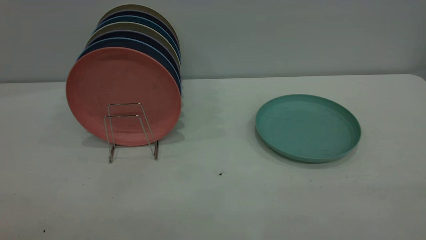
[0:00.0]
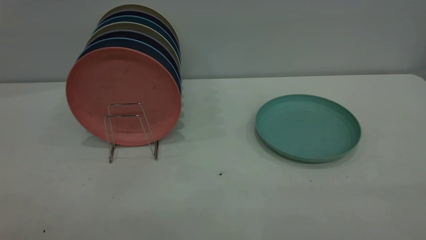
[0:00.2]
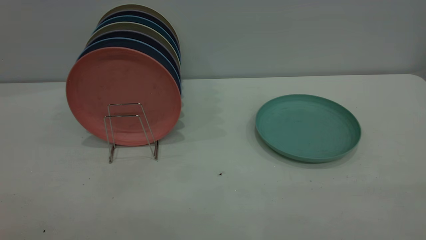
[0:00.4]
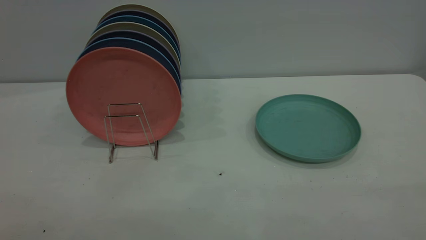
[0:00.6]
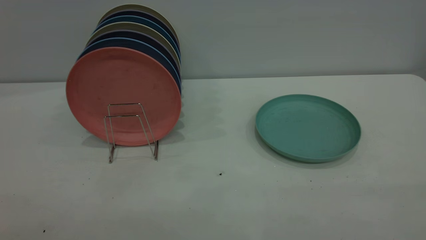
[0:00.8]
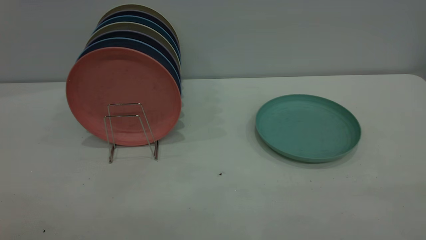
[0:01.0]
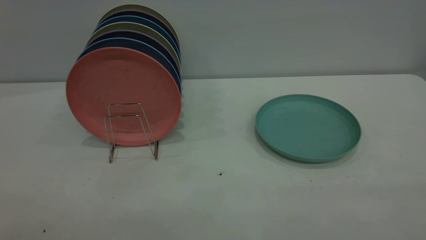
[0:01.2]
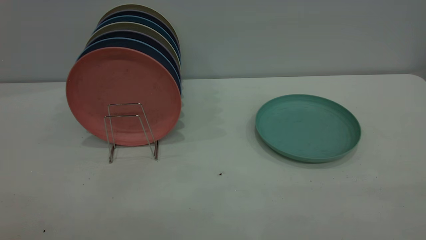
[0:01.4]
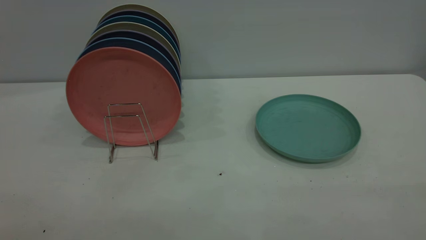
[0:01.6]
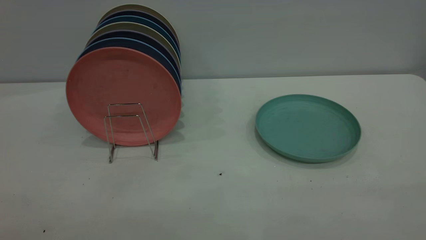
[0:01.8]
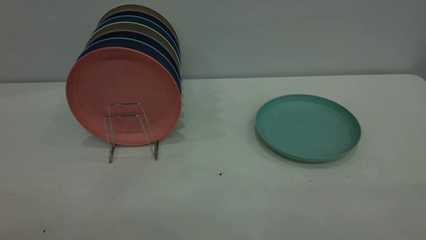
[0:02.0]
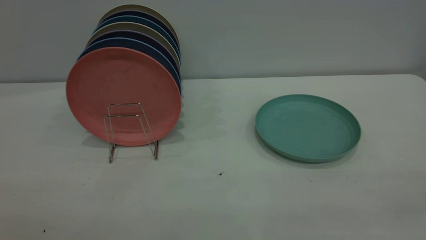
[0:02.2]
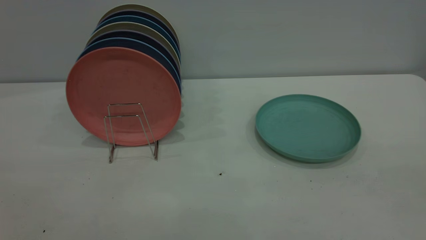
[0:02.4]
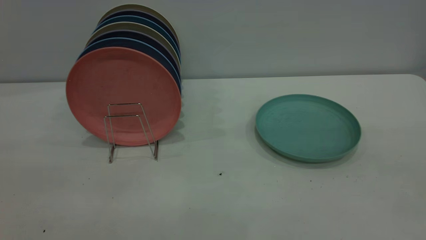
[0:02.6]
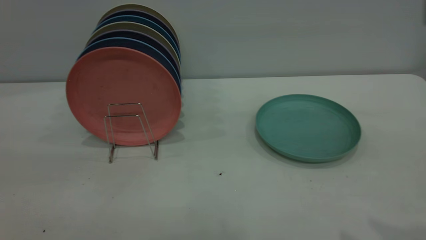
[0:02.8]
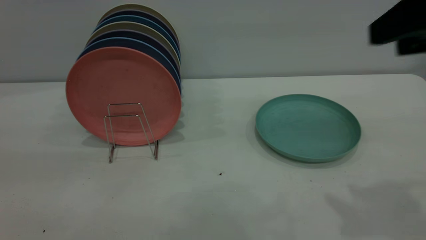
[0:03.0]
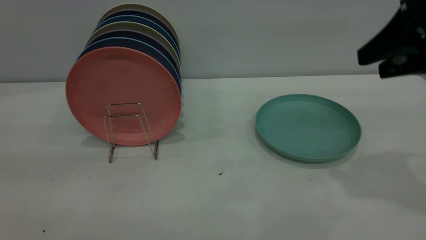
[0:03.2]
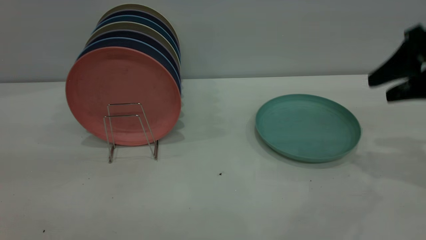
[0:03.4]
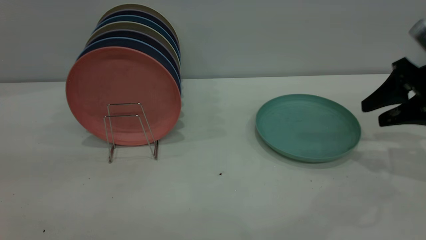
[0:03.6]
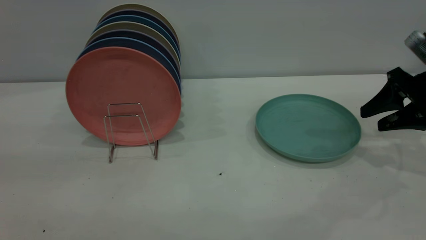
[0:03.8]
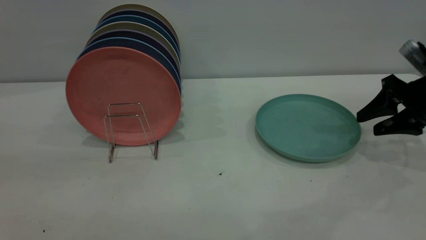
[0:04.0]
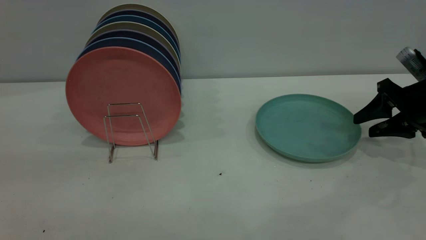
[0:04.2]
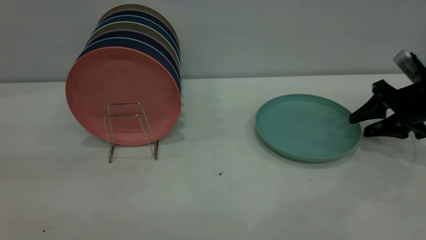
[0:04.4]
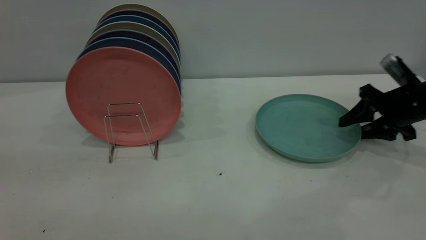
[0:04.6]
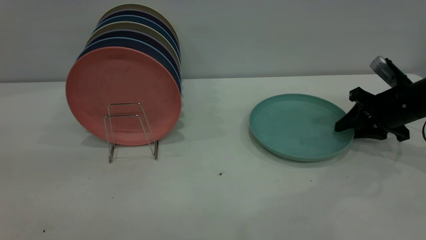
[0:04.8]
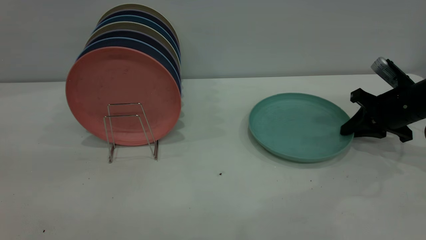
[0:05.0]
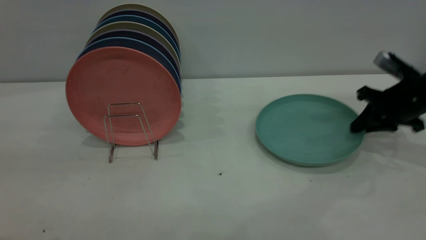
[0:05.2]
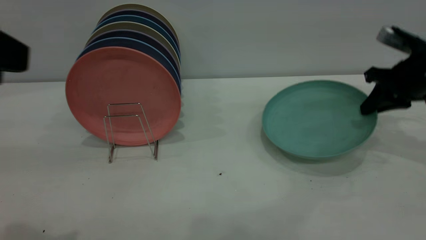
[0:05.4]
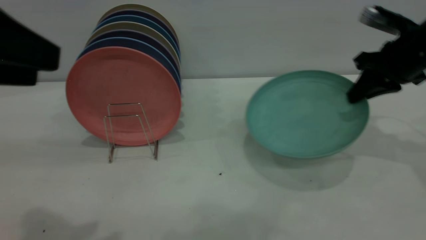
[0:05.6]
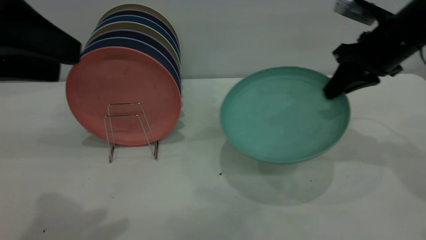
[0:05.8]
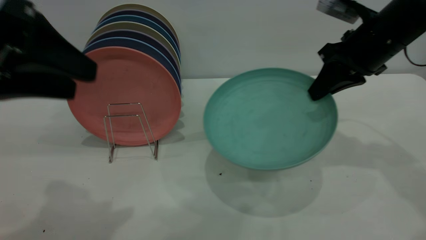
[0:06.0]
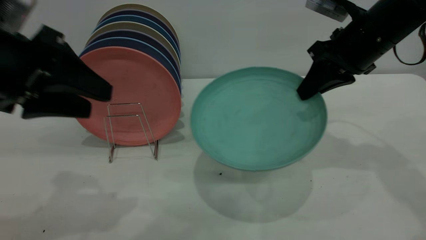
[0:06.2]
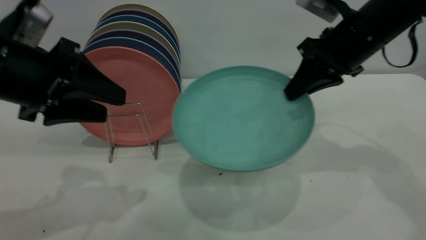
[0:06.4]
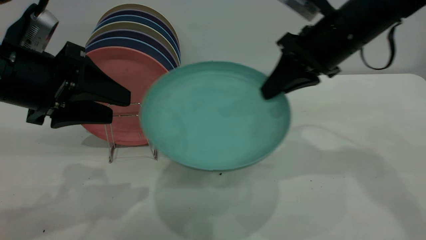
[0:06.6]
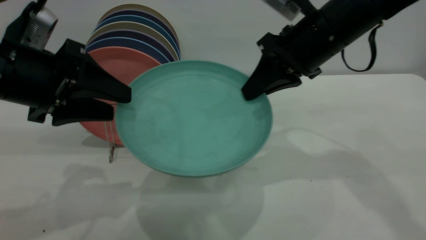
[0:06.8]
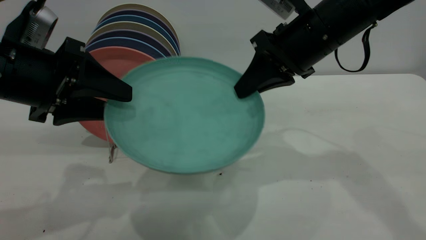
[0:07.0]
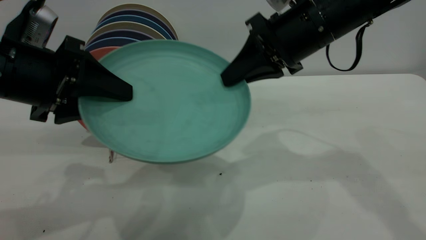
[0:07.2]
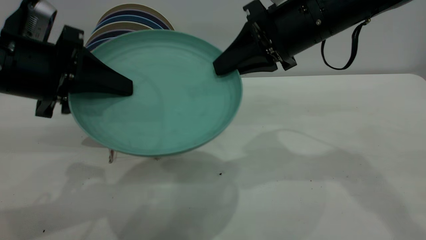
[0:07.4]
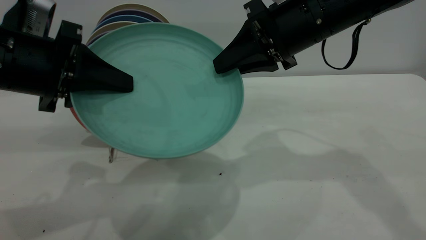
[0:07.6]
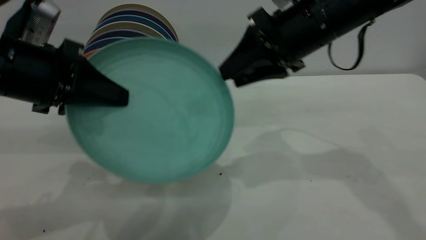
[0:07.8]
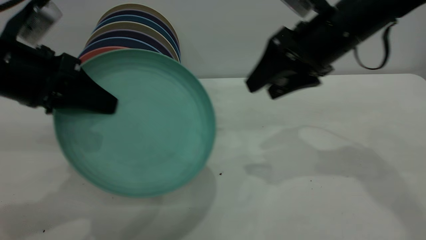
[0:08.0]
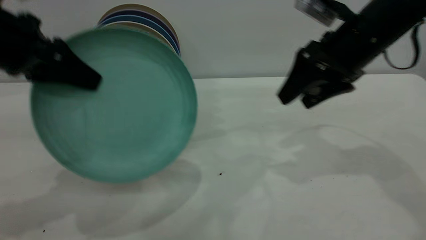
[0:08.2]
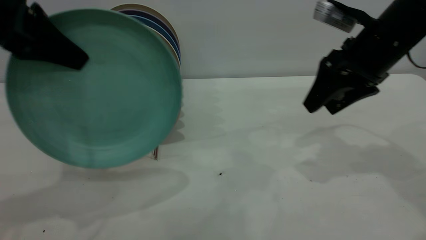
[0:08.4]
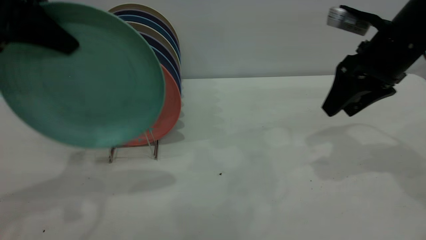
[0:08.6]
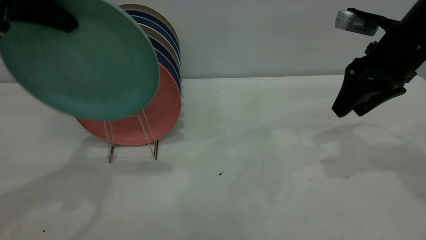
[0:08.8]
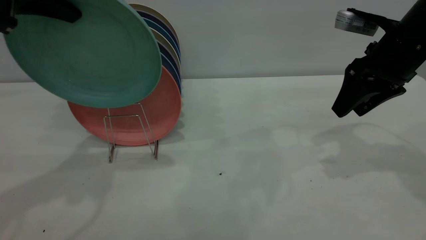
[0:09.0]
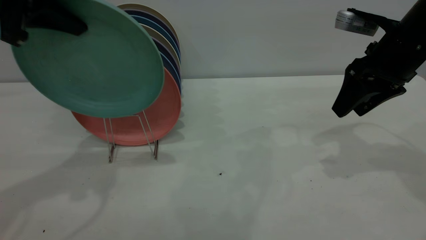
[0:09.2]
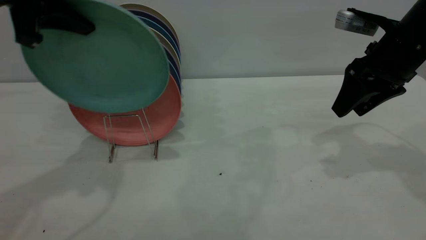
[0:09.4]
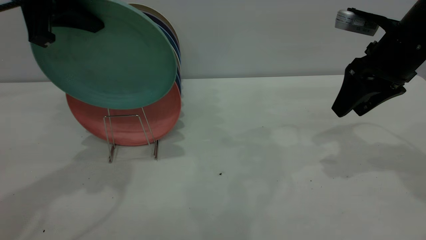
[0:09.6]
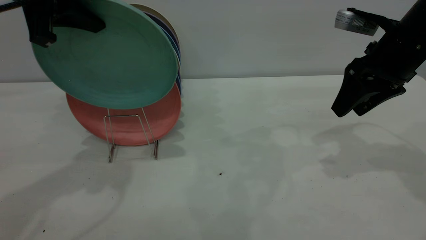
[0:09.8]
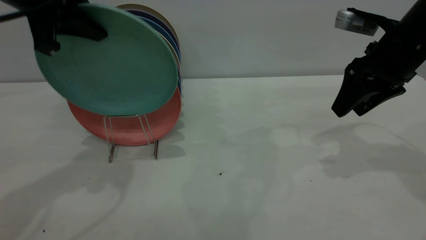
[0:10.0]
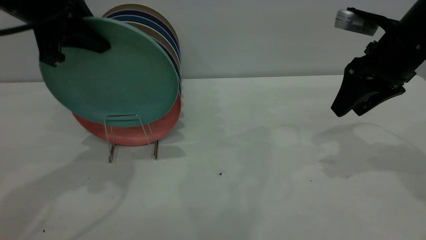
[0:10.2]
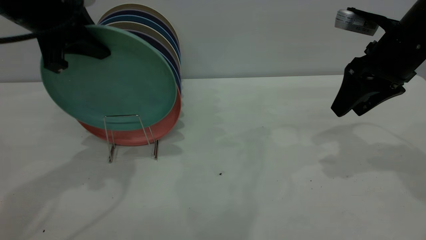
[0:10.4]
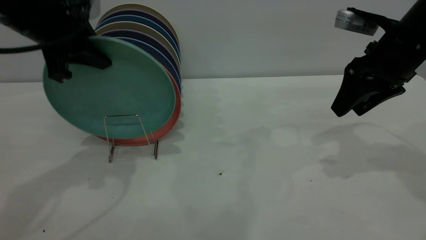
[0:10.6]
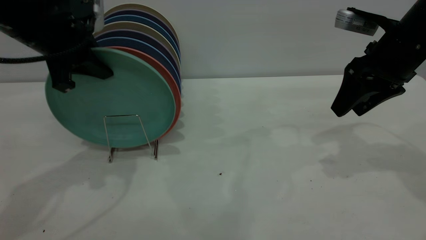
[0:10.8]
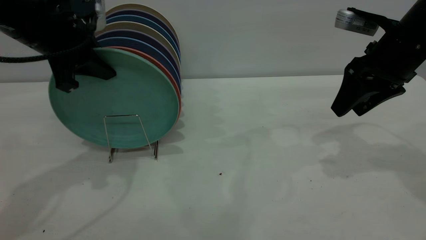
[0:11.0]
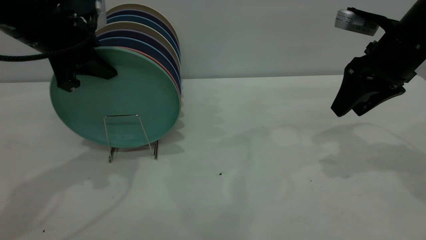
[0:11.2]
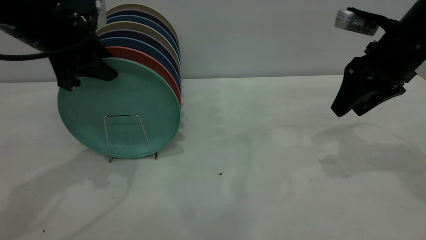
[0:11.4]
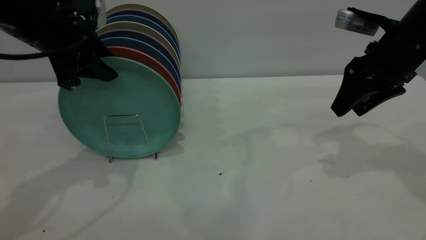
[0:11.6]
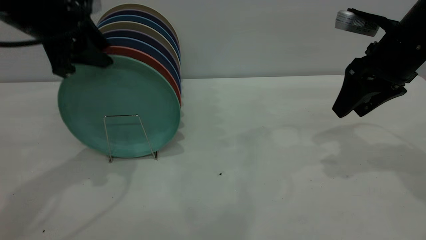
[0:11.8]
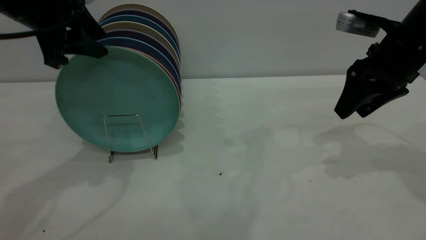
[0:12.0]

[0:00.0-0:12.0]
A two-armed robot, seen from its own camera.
Task of the whole recording: the right gripper grasp the green plate, the right gripper pass the green plate to the left gripper, and the left gripper place the green plate on the plate rack.
Step, 0:00.0 to 0:05.4: Pick up the plate with the right gripper.
Step, 0:05.6 to 0:07.8: Pass the plate from the right gripper to the left gripper.
0:00.0 to 0:01.6: Both grippers stay about where they are.
0:01.6 to 0:03.0: The right gripper heads forward, covering approximately 25 cm.
0:03.0 to 0:04.4: The right gripper moves downward and forward, roughly 25 cm.
0:04.4 to 0:06.0: The right gripper shifts roughly 15 cm to the left and upward, and closes; the left gripper heads forward and downward, covering roughly 15 cm.
0:06.0 to 0:07.6: The left gripper changes place by some 5 cm, and closes up, while the right gripper is displaced to the left by about 10 cm.
0:07.6 to 0:09.0: The right gripper travels to the right by roughly 15 cm, and opens its fingers, while the left gripper travels upward and forward by about 15 cm.
0:09.0 to 0:10.4: The left gripper is displaced downward by about 5 cm.
0:10.4 to 0:12.0: The left gripper opens.

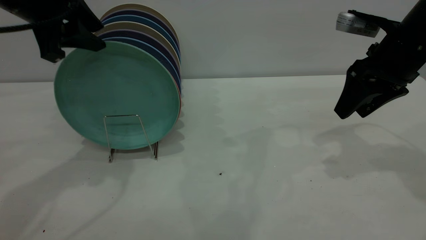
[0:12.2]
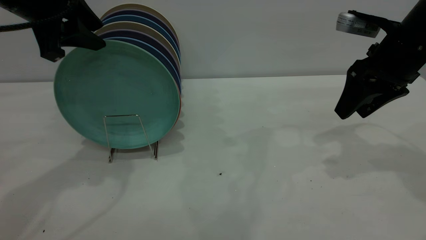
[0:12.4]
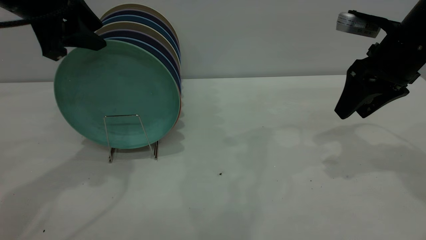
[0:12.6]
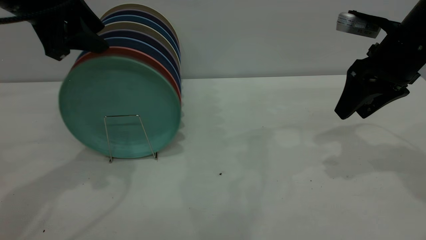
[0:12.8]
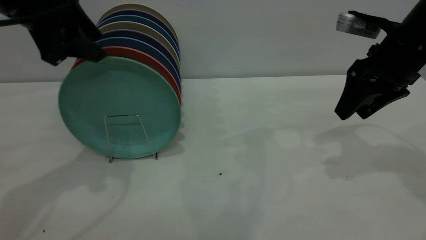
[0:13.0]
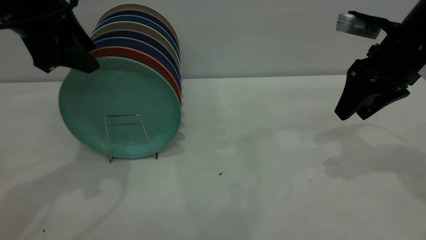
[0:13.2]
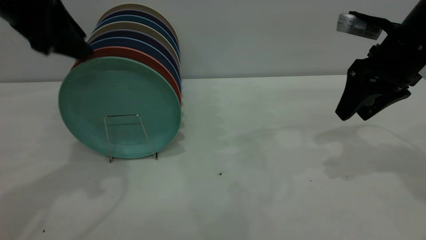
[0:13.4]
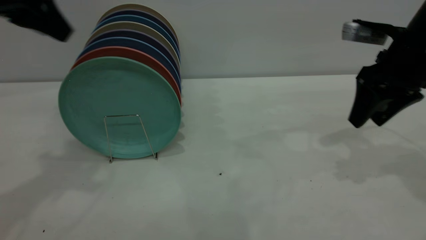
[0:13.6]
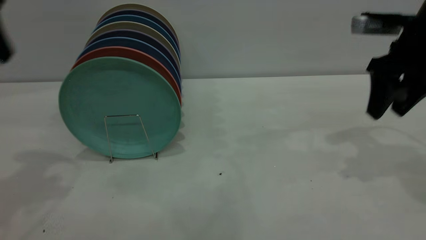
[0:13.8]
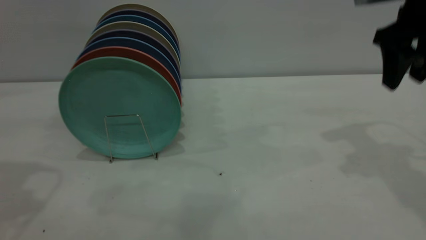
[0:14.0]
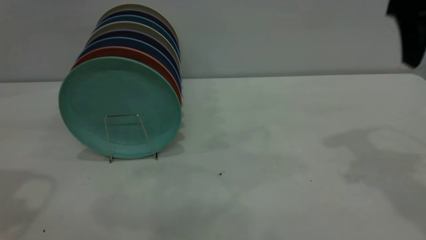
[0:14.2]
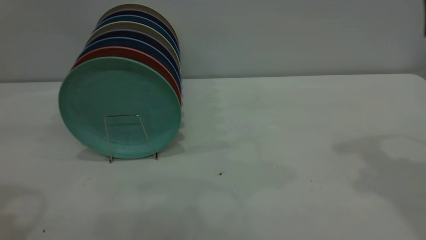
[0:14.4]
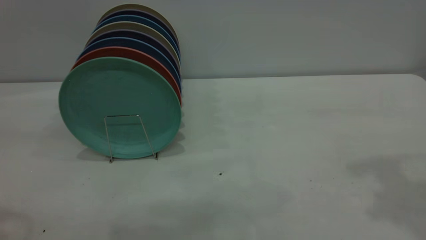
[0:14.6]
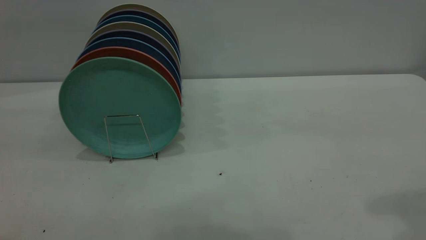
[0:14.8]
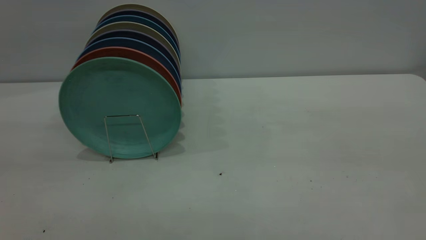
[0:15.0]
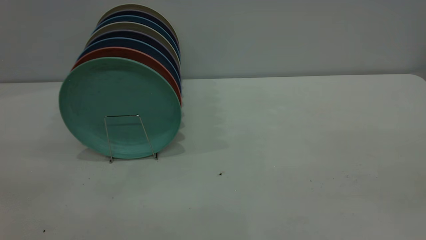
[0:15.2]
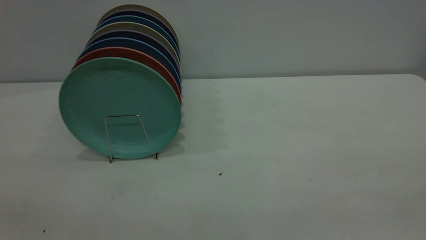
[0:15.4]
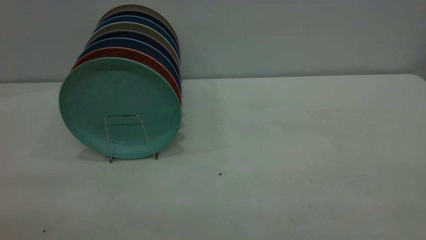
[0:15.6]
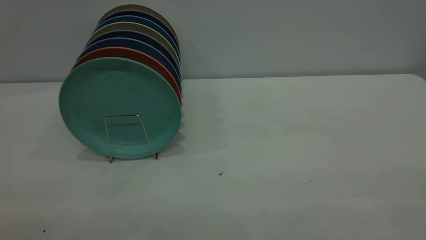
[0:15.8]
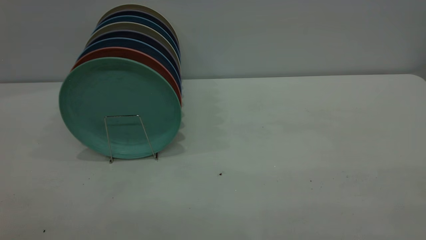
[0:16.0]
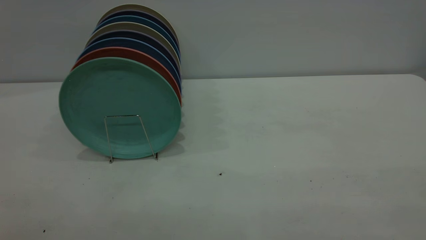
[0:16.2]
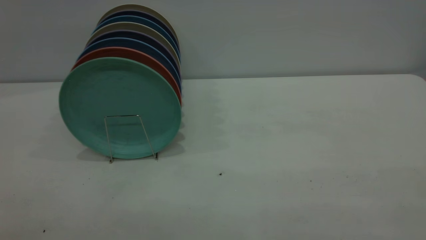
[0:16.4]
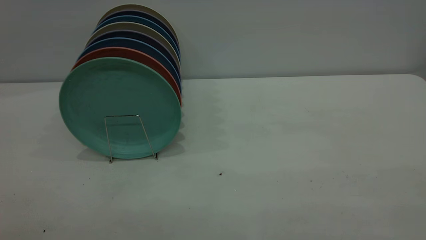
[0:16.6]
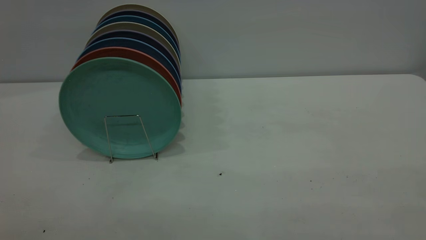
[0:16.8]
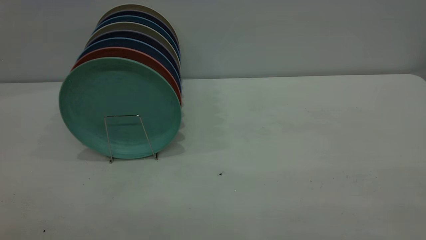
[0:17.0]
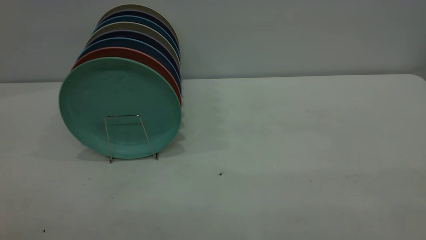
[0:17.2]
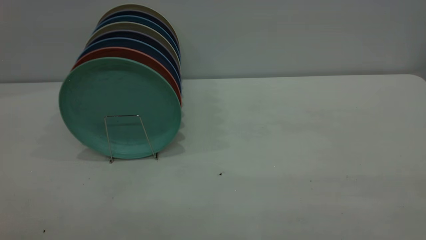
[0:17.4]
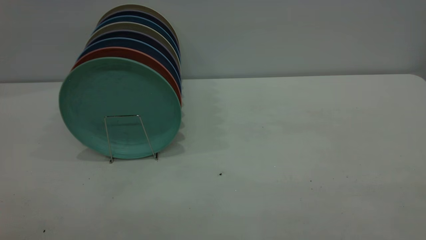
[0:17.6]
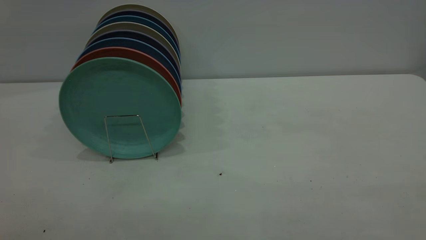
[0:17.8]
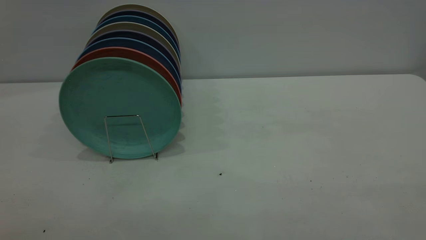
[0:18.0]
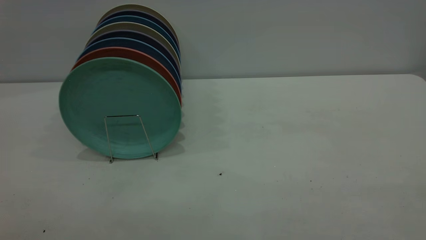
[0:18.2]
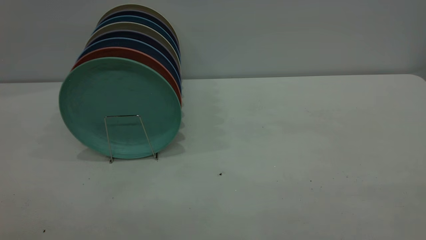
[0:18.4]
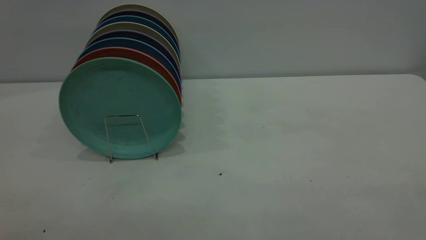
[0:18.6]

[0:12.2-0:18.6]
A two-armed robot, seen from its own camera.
Task of the whole recording: the right gripper grasp the green plate, the right gripper pass the green plate to the left gripper, and the left gripper place the green plate on the plate rack.
0:12.2 to 0:13.8: The left gripper heads to the left and backward, covering some 10 cm.
0:13.8 to 0:15.4: The right gripper is displaced backward by some 35 cm.
